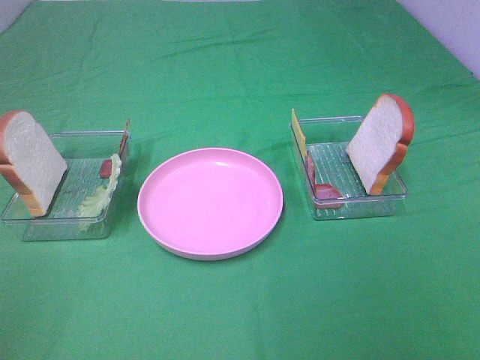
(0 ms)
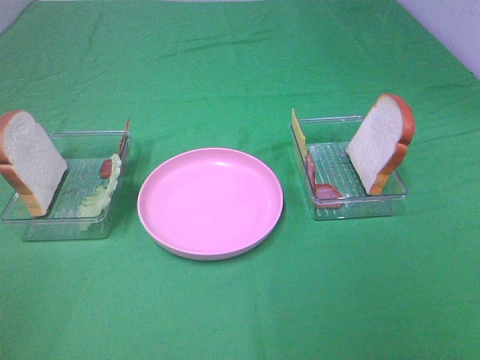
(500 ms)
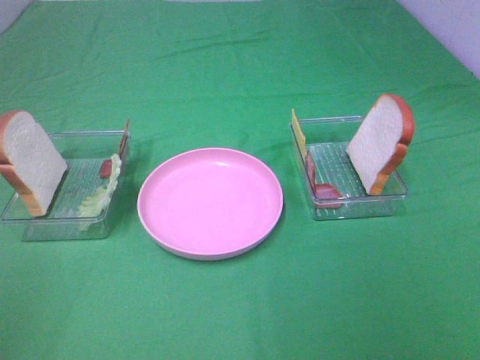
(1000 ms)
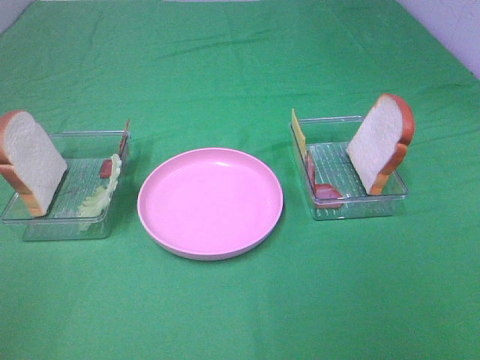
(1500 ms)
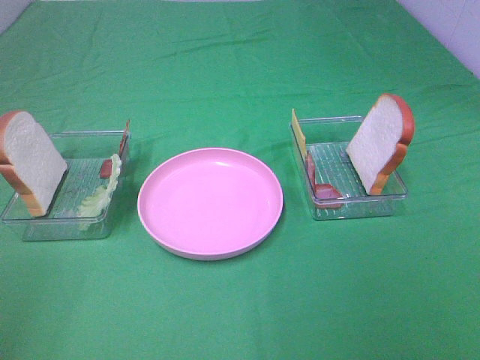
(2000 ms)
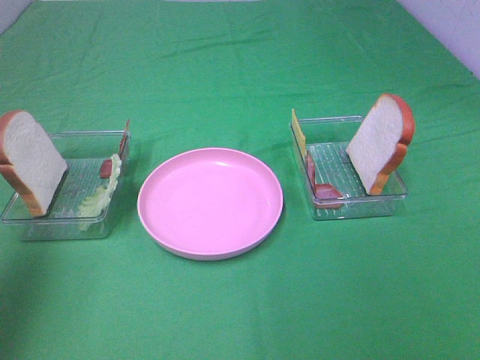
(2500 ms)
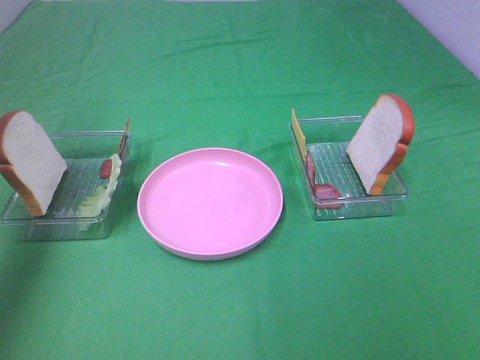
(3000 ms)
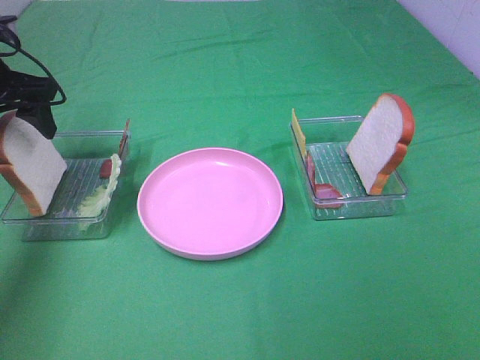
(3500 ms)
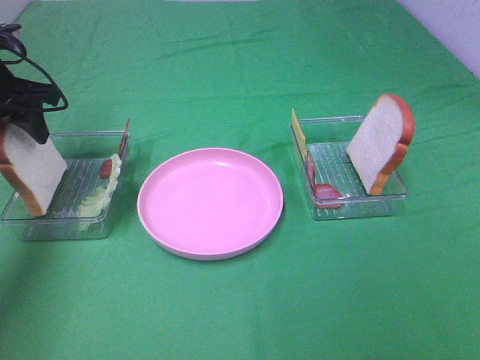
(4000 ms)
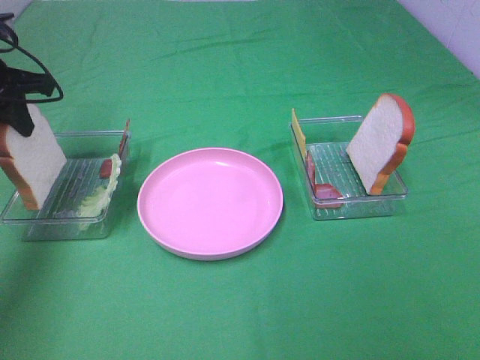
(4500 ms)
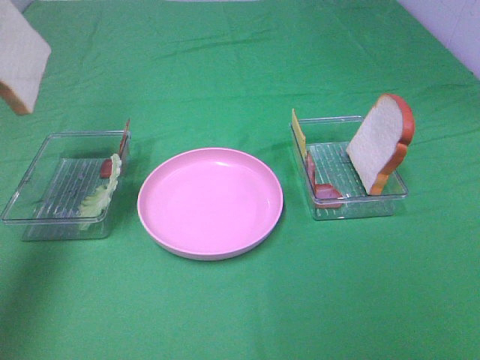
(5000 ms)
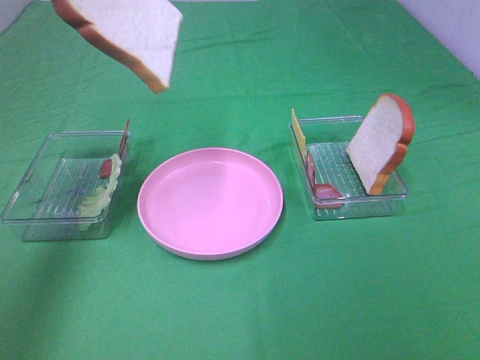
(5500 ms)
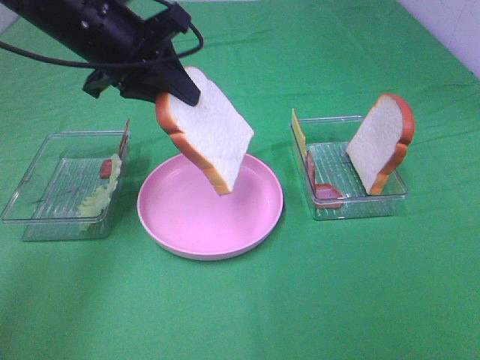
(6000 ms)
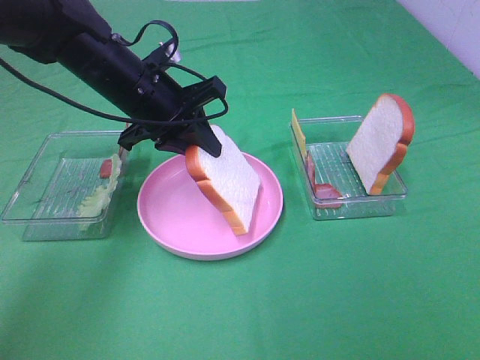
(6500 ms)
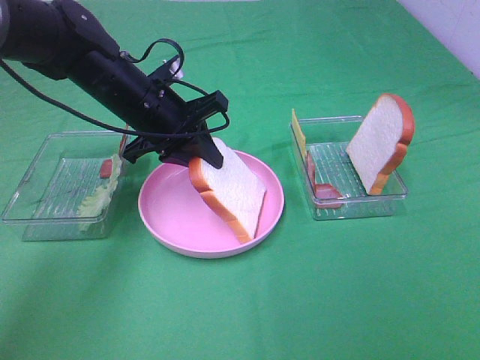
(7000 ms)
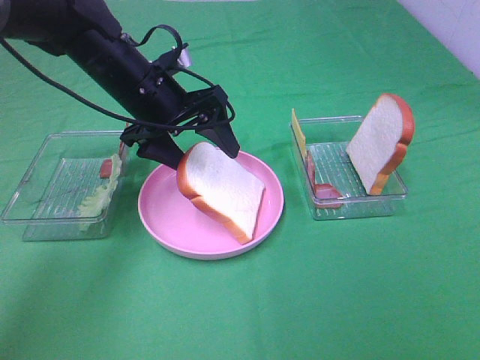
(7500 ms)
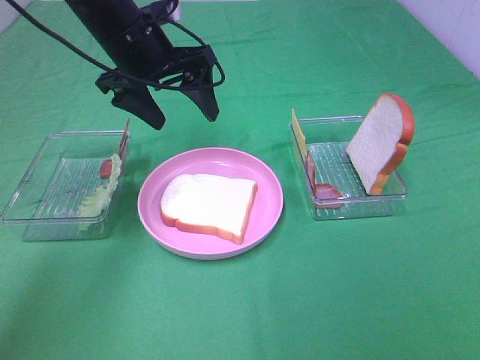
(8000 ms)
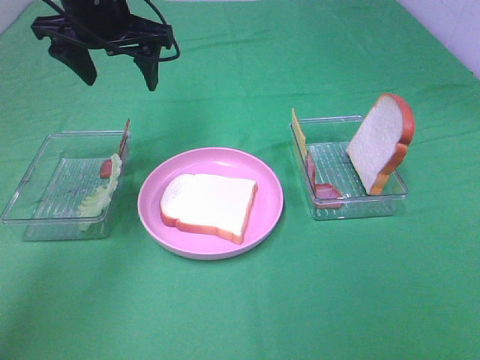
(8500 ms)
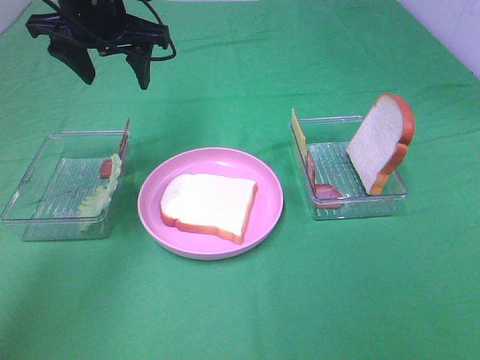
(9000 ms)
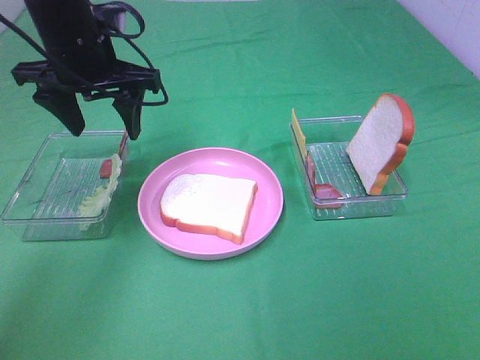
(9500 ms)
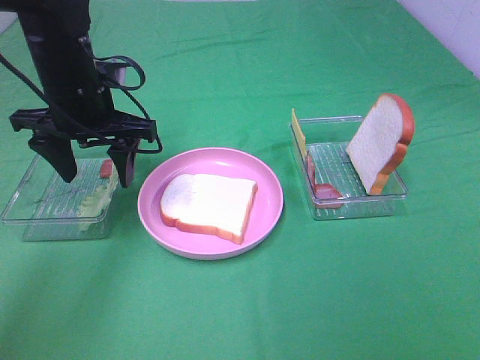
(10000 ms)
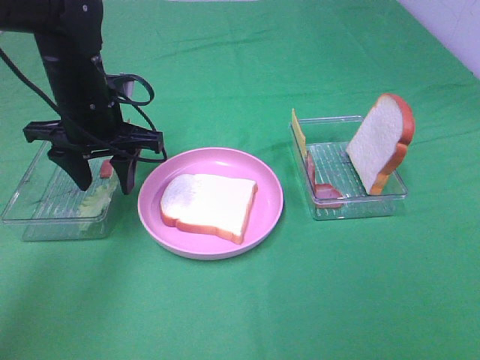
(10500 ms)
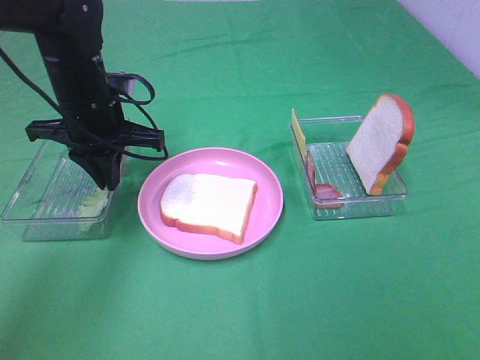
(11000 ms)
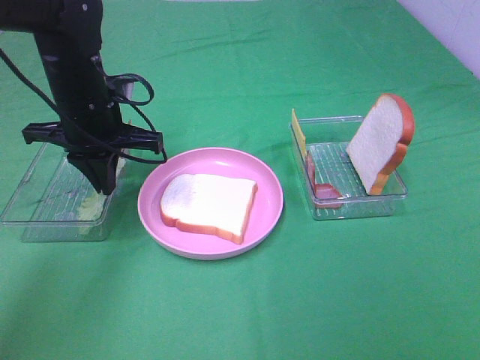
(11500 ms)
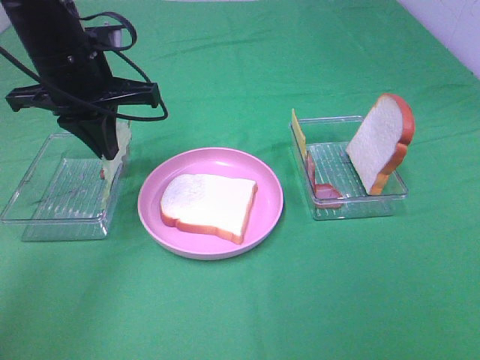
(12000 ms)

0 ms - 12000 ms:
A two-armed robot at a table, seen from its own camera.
Task of the whole recording: Make sandwiches.
Step, 0 ms - 4000 ms: Left hand:grab the bread slice.
Step, 4500 ms - 7500 ms: Left hand:place the bread slice on the plate.
Step, 8000 ms - 11500 ms: Left hand:grab the lettuce slice.
2000 ms - 4000 ms: The left gripper heads forward, covering roughly 40 cm, and closes up.
4000 ms - 6000 ms: The left gripper shifts some 15 cm to the right, and goes upward and returns, about 15 cm each way.
6000 ms - 8000 ms: The left gripper reaches approximately 10 cm downward, then returns, and opens up.
8000 ms - 10000 ms: The left gripper ends up about 10 cm from where it was.
10000 ms - 12000 ms: The left gripper closes up.

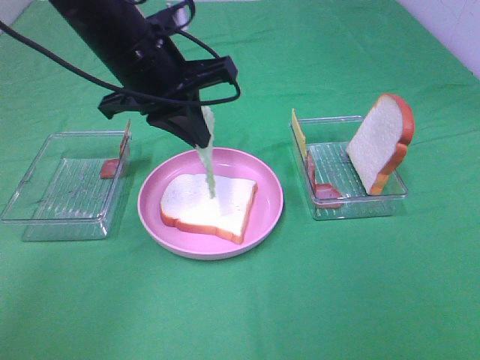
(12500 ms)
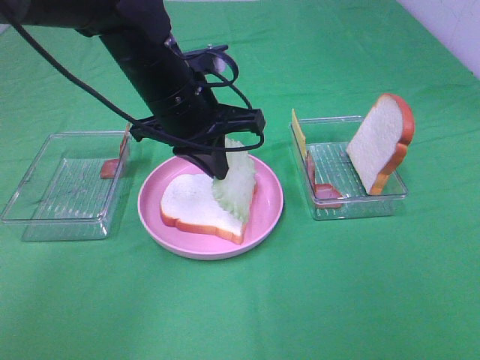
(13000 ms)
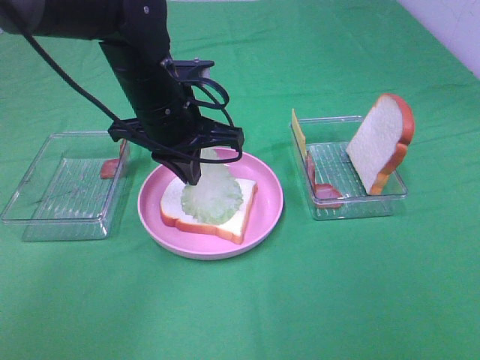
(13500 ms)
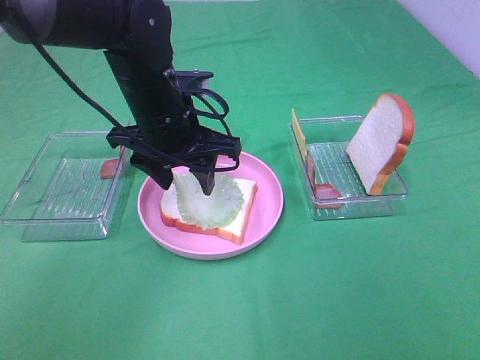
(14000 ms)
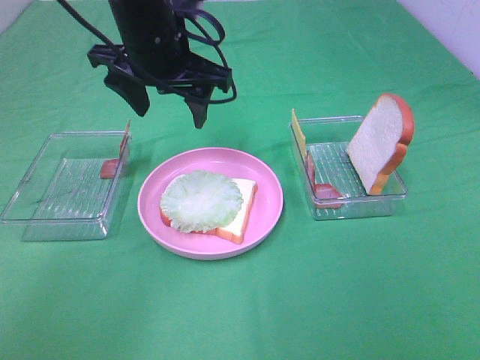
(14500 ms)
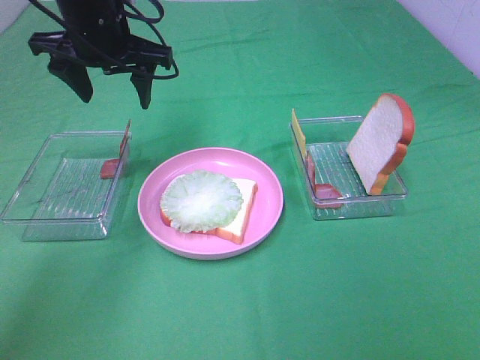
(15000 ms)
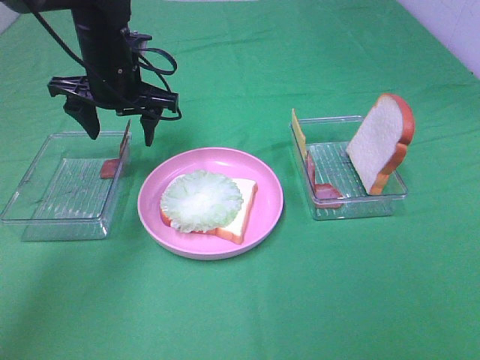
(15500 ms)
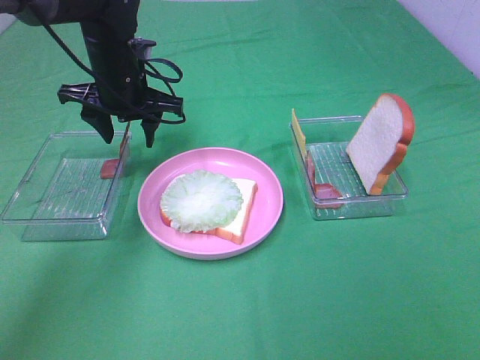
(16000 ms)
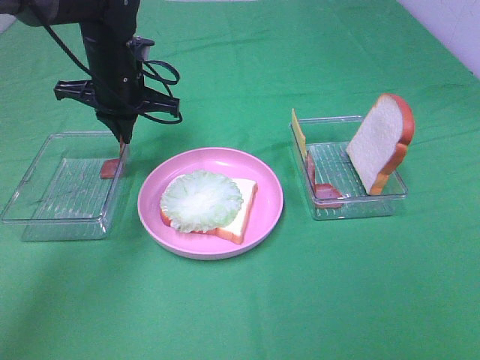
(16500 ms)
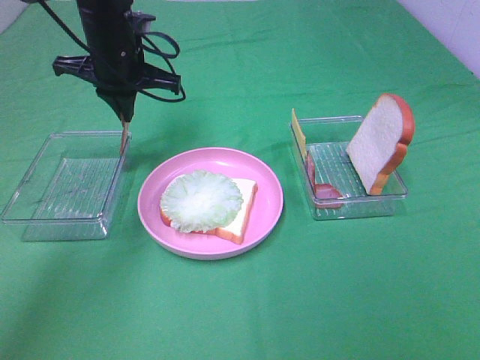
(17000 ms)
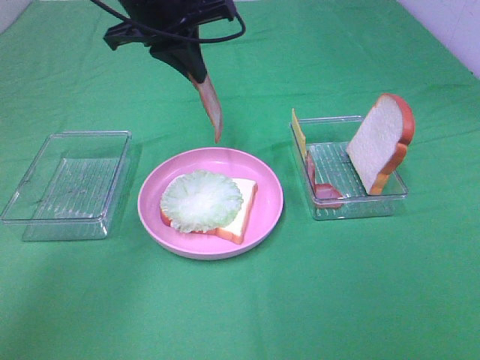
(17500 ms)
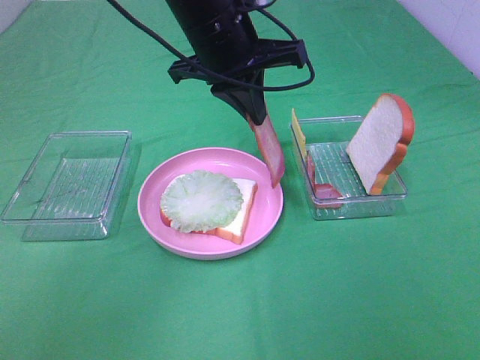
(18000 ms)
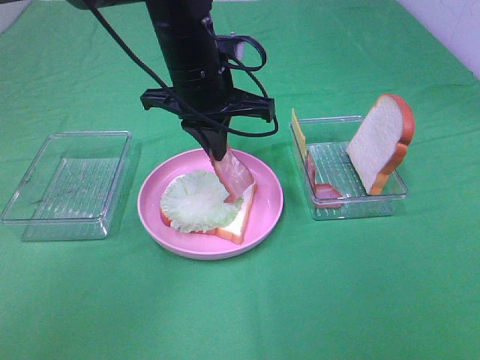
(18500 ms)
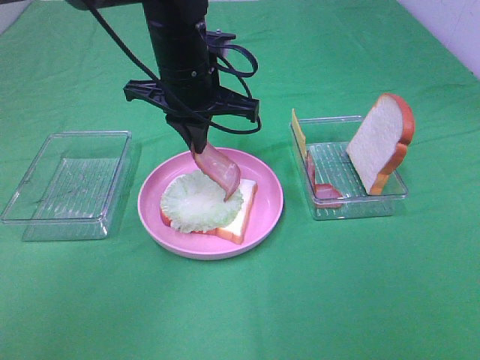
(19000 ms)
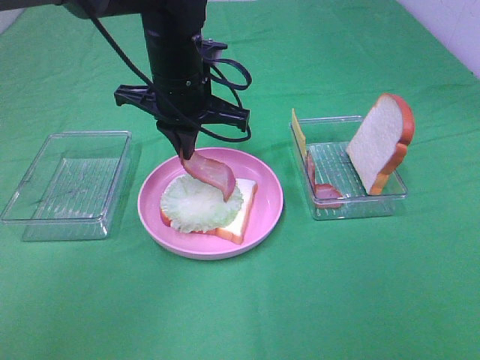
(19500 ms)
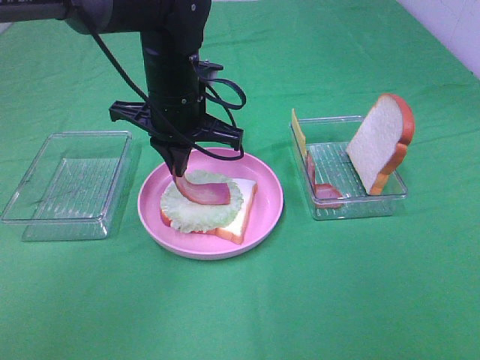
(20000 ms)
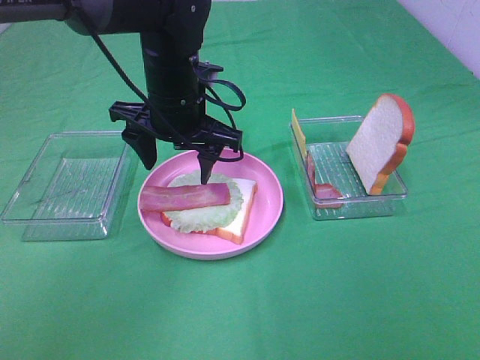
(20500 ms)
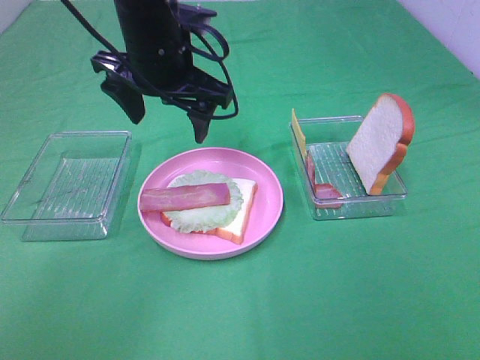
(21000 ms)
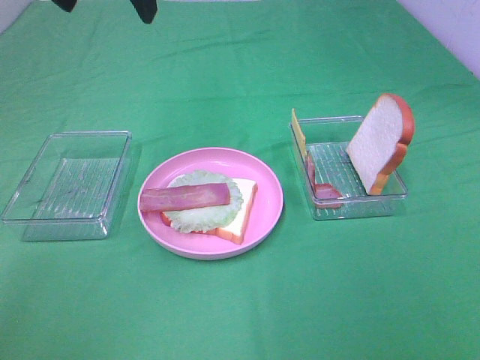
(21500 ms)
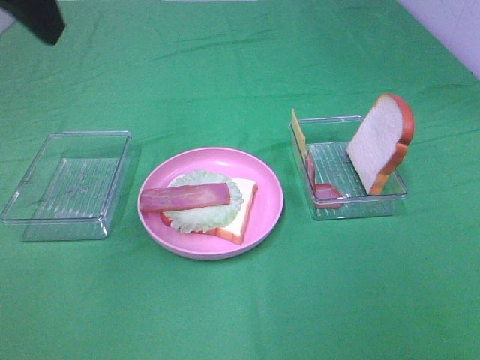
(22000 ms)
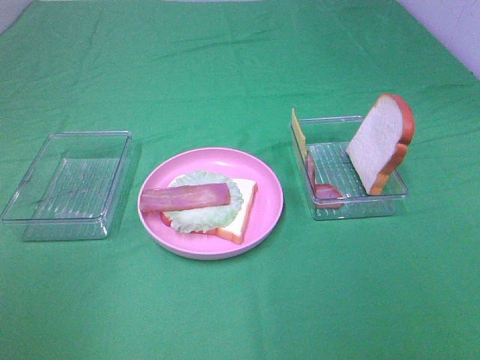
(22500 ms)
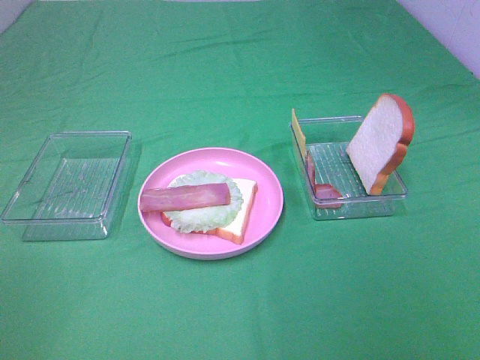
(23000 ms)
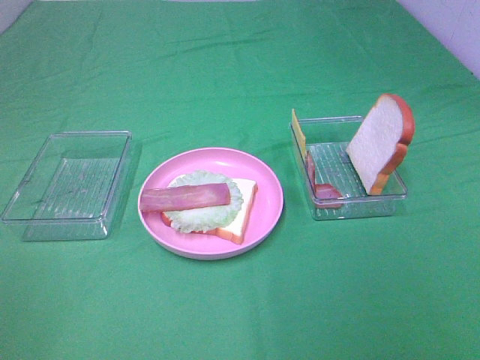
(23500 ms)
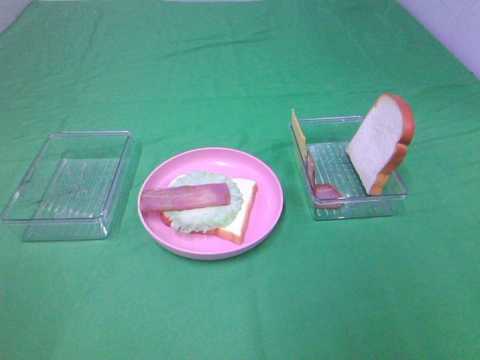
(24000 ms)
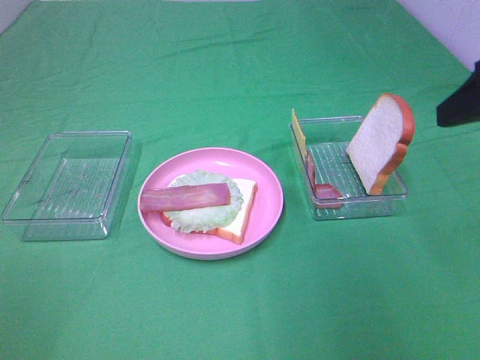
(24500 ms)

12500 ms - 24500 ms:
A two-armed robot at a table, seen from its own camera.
Task of the whole recording: Make sandwiches.
Step, 12500 ms - 14000 ms: Left hand:place the lettuce slice on the bread slice.
Step, 14500 ms - 16500 ms: Left hand:grab the bacon.
Step, 17000 ms - 20500 ms: Left hand:place bacon on lettuce slice.
12500 ms - 14500 ms: The left gripper goes downward and returns, about 5 cm each way, and opens.
14500 ms - 16500 ms: The left gripper travels downward, to the left and forward by about 10 cm, and closes its fingers.
16500 ms - 18500 ms: The left gripper is displaced to the right and backward by roughly 15 cm.
18500 ms - 20500 ms: The left gripper opens.
20500 ms - 22500 ms: The left gripper moves backward, to the left and upward, approximately 40 cm.
22500 ms - 24500 ms: The right gripper shifts roughly 25 cm forward.

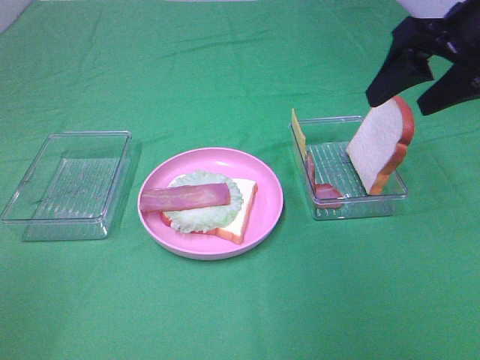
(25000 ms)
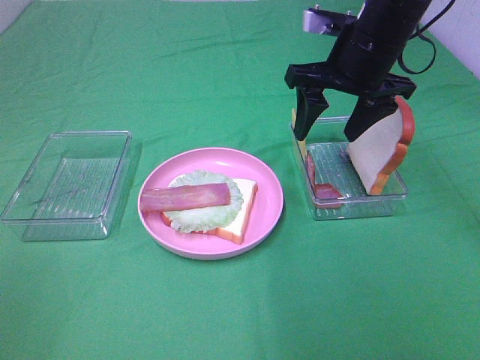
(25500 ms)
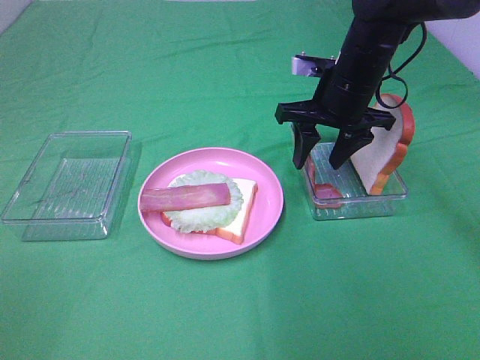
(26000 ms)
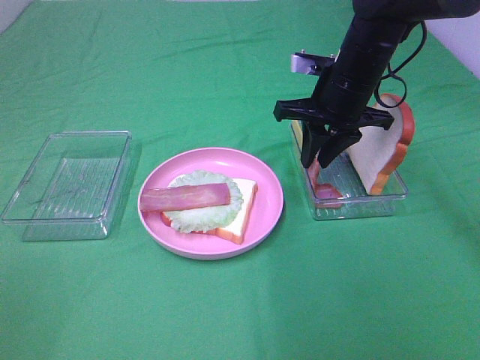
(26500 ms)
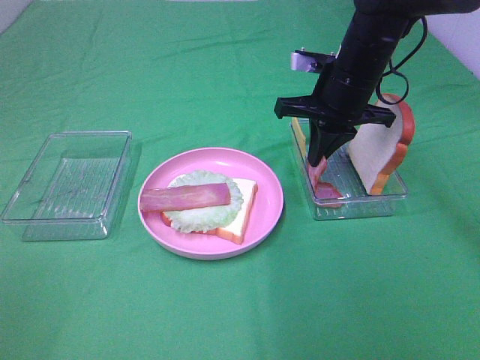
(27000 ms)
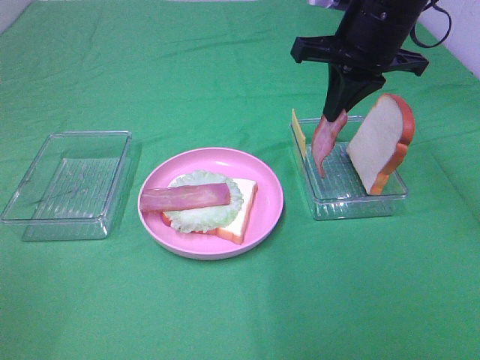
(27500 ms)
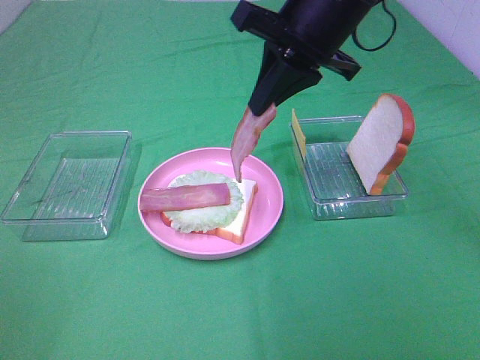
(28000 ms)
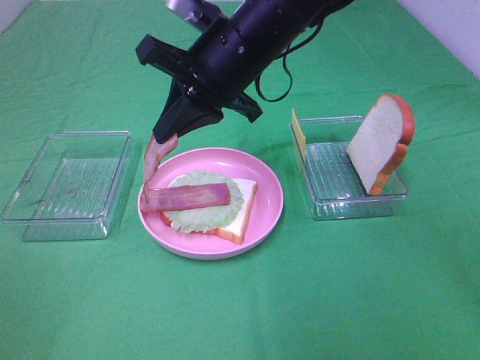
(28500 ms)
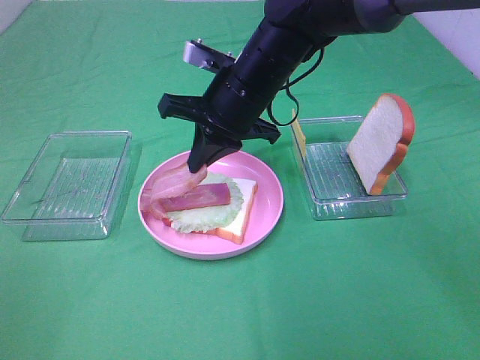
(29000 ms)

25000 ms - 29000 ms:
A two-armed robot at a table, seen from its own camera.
Task of the whole recording: Make sandwiches.
Step, 25000 ms - 27000 ms: Right hand:grab the bacon.
25000 ms - 27000 ms: The right gripper heads downward, to the left and forward, covering approximately 15 cm, and closes.
27000 ms - 29000 ms: The right gripper is displaced to the left by roughly 10 cm.
